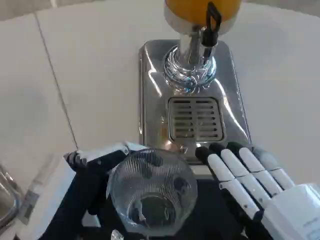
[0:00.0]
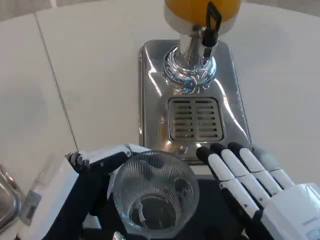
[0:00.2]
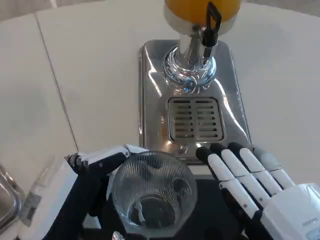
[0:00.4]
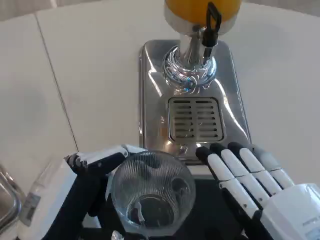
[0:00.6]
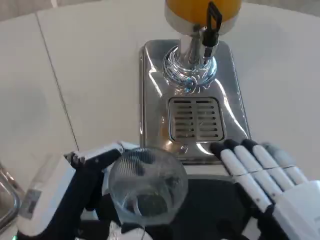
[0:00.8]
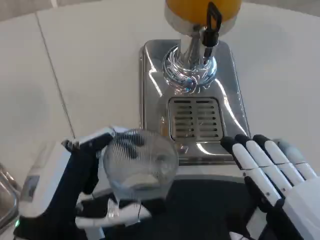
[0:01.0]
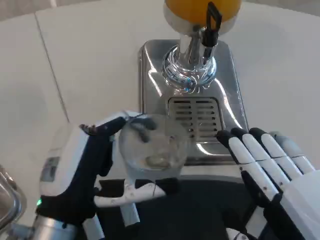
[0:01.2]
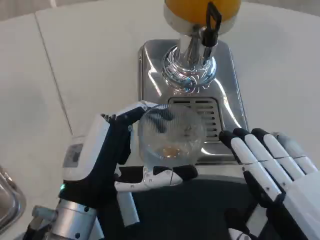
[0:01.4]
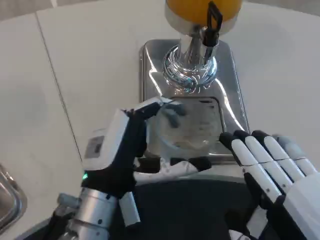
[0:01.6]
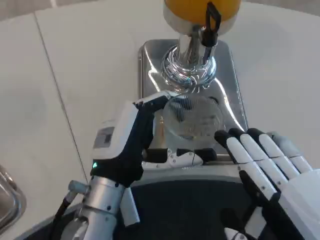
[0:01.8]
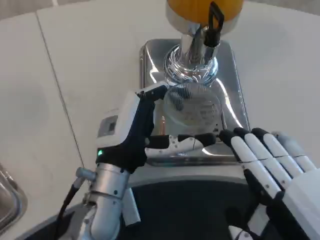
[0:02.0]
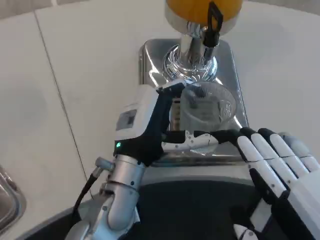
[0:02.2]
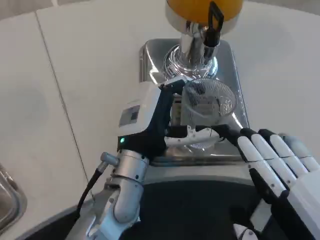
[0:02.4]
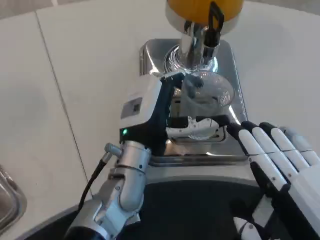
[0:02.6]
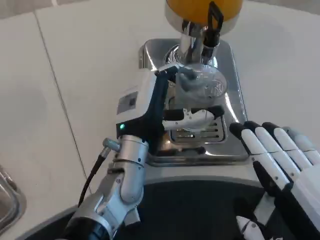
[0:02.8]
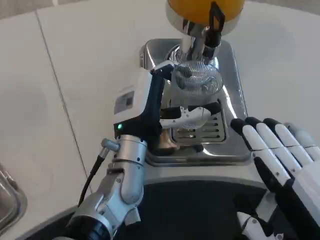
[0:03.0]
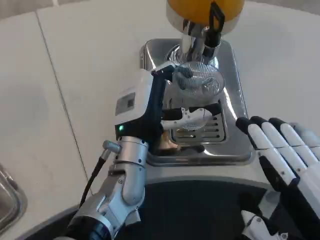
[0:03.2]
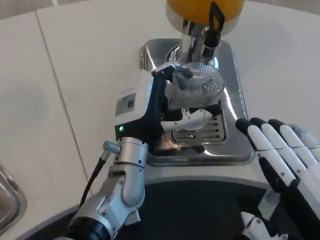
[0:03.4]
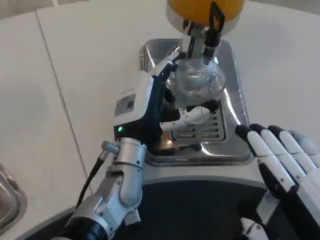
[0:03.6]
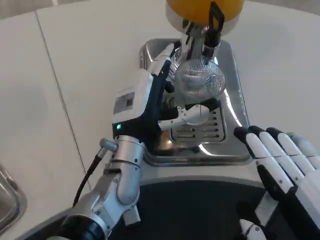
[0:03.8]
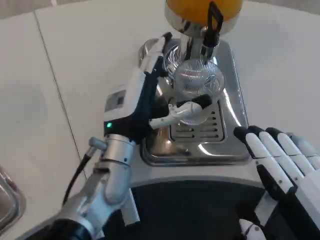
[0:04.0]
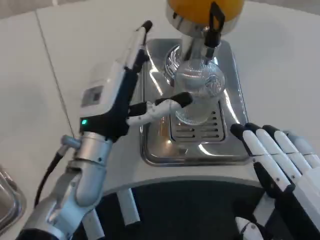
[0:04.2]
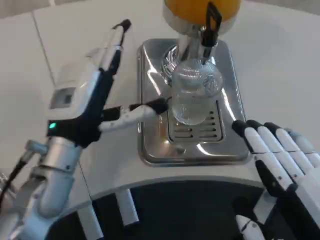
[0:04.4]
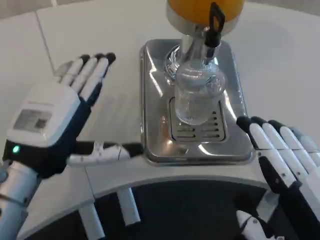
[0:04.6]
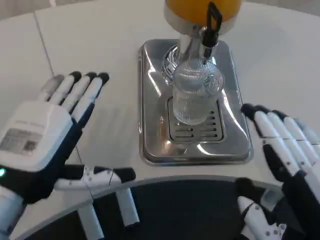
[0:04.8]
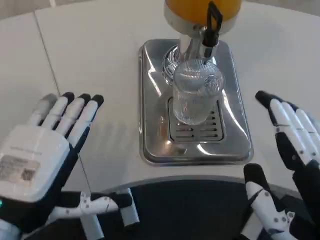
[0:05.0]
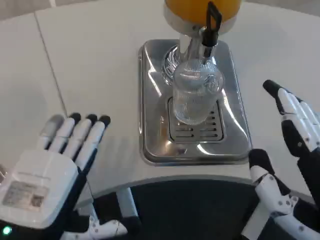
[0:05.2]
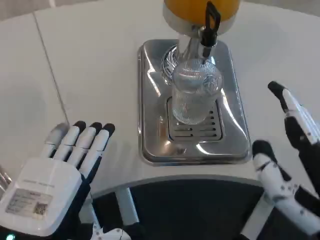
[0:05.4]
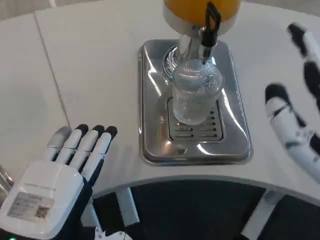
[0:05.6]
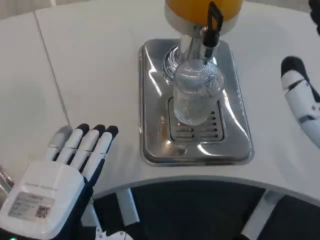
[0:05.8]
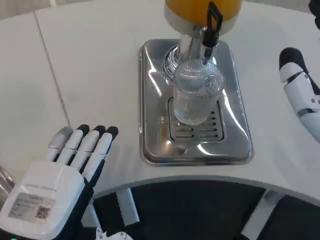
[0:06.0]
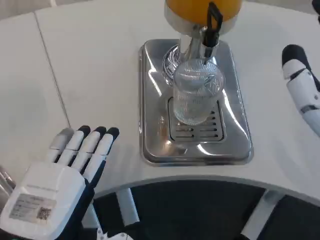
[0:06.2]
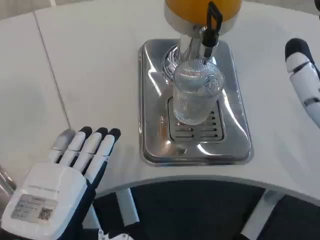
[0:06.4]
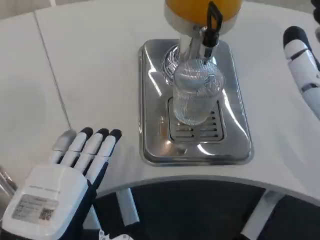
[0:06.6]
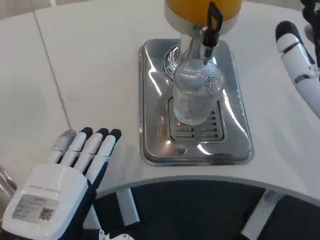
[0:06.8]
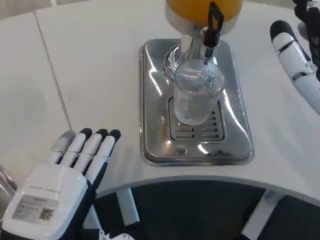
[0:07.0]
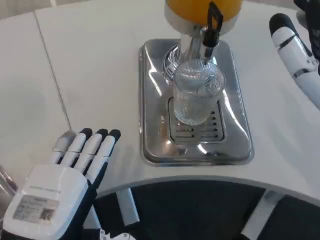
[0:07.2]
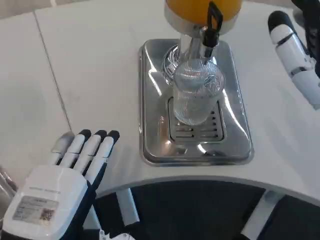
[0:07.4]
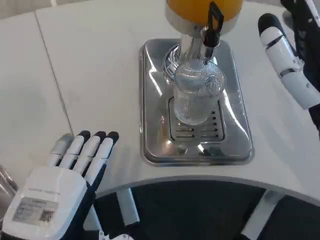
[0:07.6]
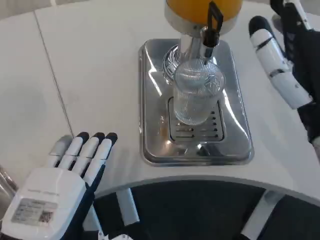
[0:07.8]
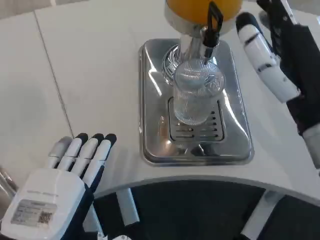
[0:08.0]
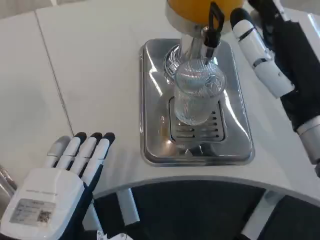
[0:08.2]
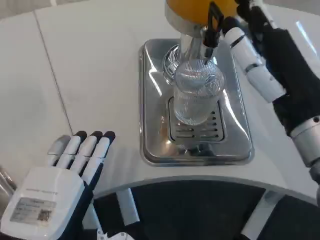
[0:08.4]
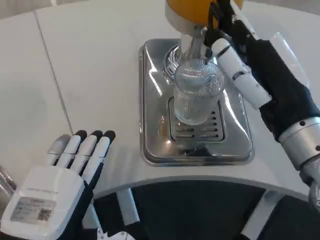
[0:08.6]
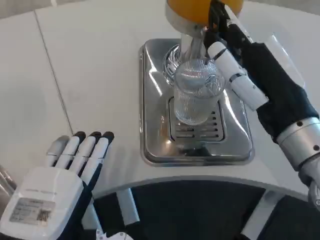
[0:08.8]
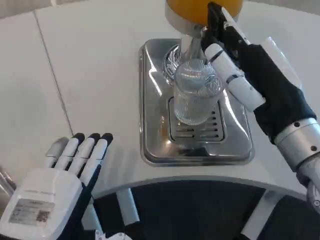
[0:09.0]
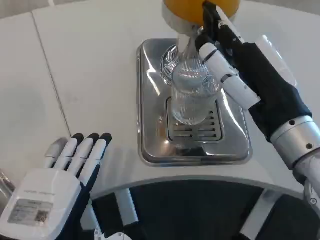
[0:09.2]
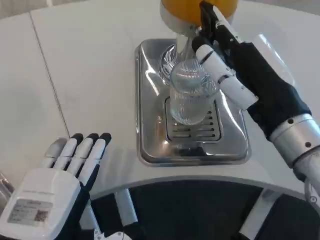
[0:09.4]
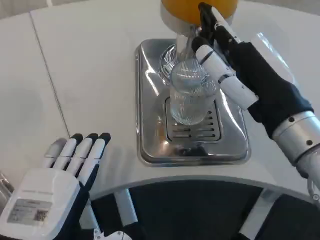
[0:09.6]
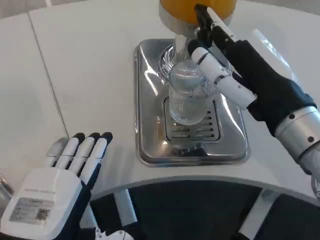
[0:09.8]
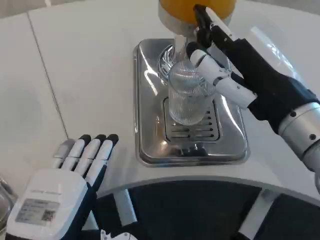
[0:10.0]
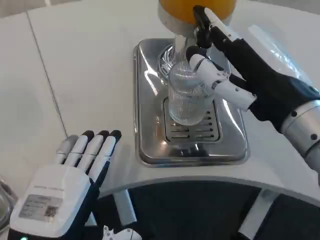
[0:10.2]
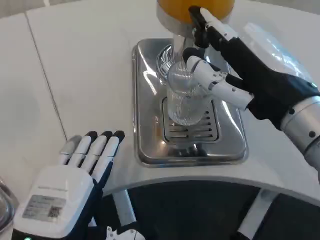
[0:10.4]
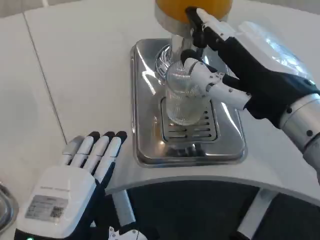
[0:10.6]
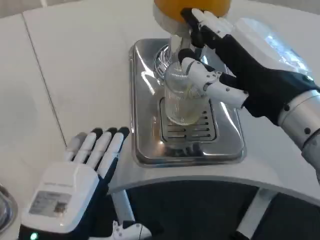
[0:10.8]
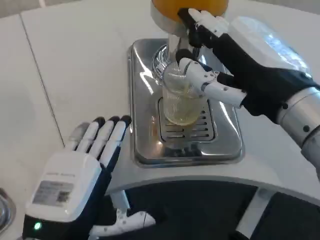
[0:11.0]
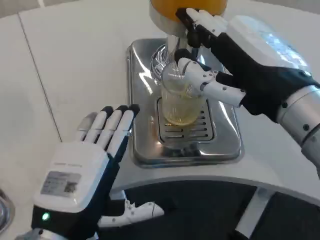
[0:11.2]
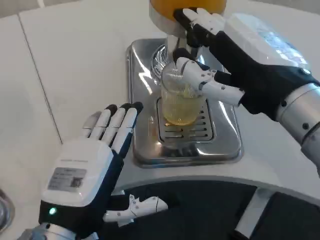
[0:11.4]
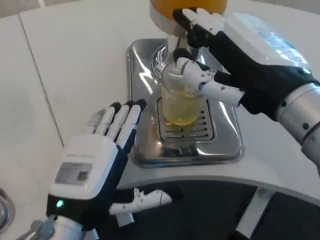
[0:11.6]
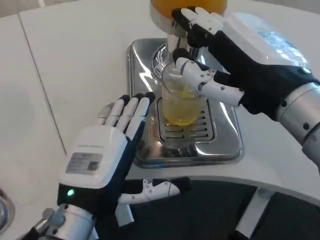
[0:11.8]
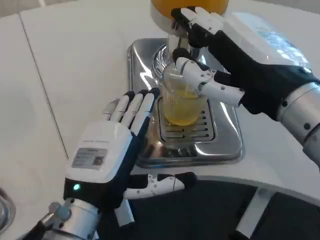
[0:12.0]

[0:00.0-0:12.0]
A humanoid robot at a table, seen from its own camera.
Task of the whole recording: Grasp the cup under the faucet to collect the drink, then remove the cup.
0:00.0 to 0:01.6: The left hand travels forward and to the right by some 10 cm.
0:01.6 to 0:03.0: The left hand goes some 10 cm forward.
0:03.0 to 0:04.4: The left hand is displaced to the left by approximately 10 cm.
0:04.4 to 0:06.0: The left hand moves backward, some 15 cm; the right hand travels forward by approximately 5 cm.
0:06.0 to 0:07.6: The right hand is displaced forward by about 5 cm.
0:07.6 to 0:09.0: The hands move only a little.
0:10.4 to 0:12.0: The left hand heads forward, covering some 5 cm.

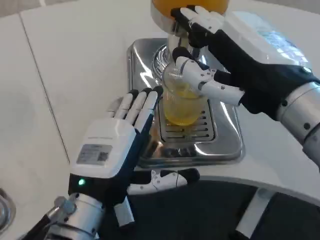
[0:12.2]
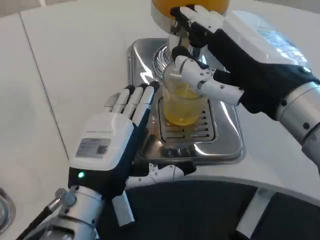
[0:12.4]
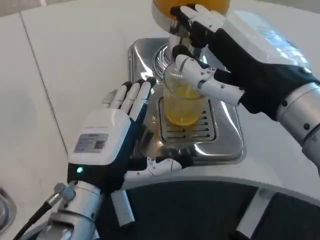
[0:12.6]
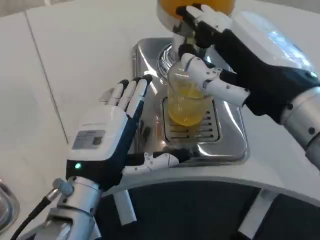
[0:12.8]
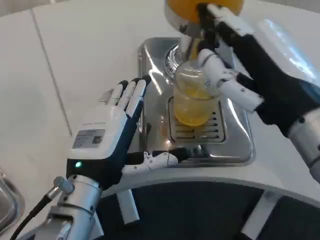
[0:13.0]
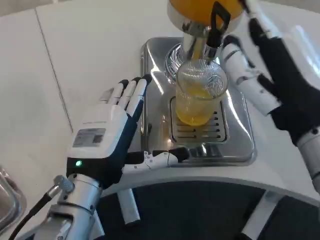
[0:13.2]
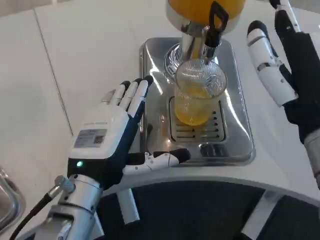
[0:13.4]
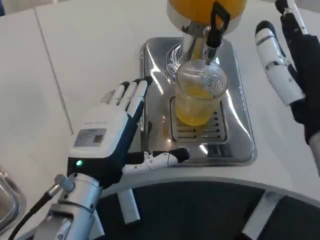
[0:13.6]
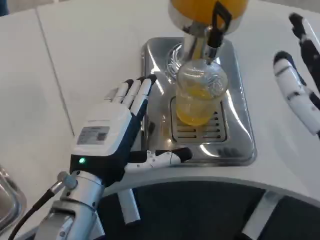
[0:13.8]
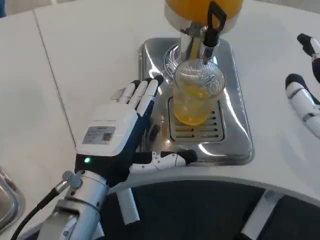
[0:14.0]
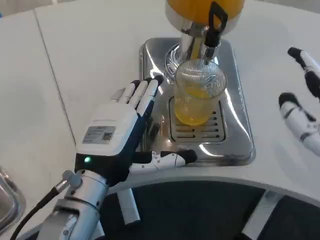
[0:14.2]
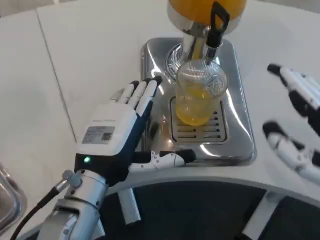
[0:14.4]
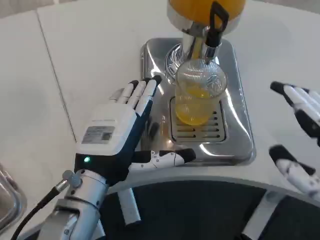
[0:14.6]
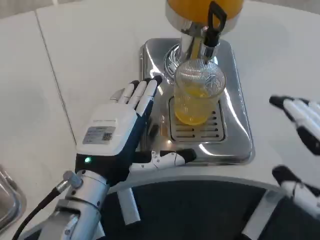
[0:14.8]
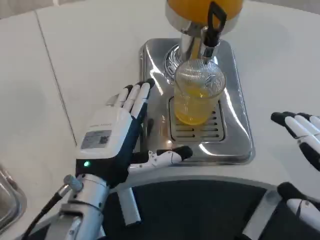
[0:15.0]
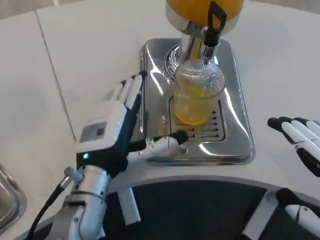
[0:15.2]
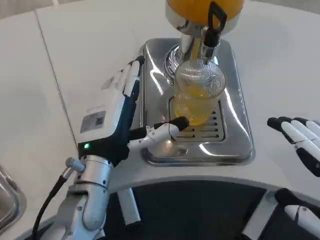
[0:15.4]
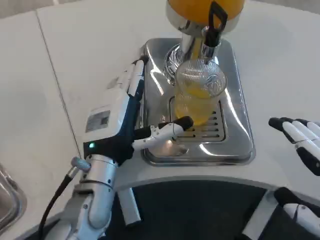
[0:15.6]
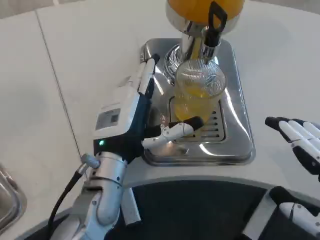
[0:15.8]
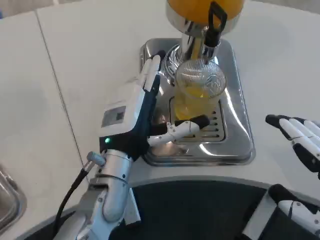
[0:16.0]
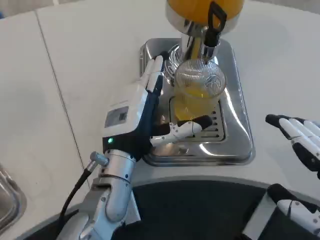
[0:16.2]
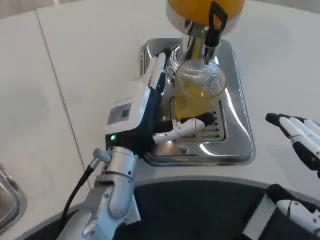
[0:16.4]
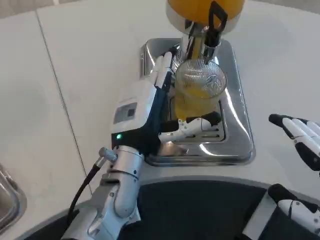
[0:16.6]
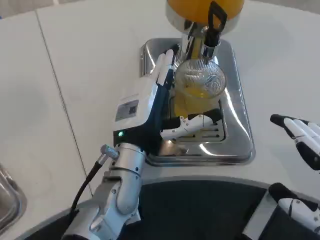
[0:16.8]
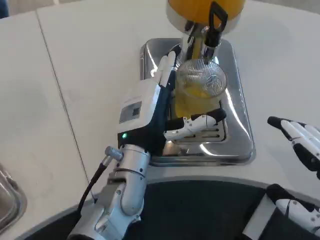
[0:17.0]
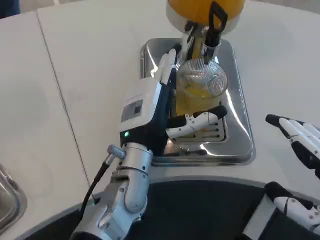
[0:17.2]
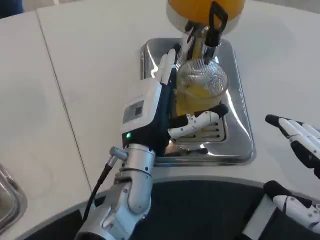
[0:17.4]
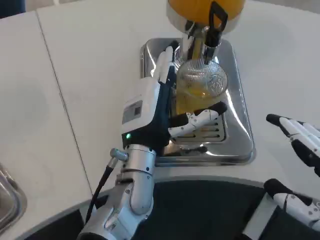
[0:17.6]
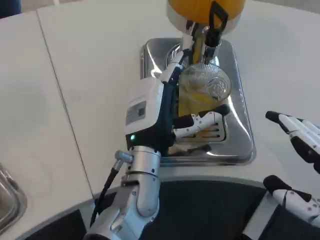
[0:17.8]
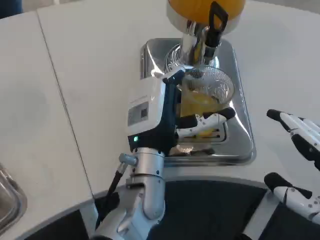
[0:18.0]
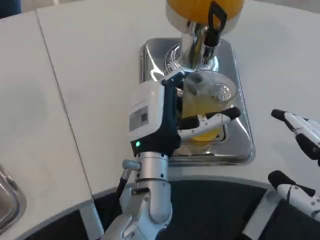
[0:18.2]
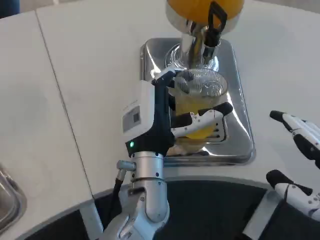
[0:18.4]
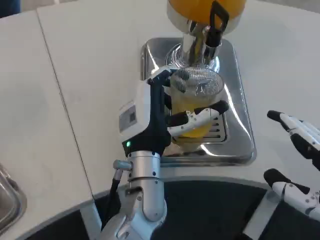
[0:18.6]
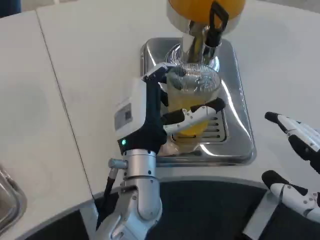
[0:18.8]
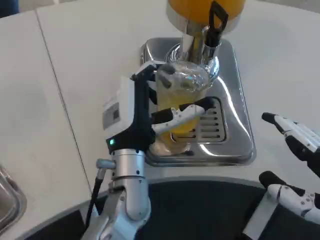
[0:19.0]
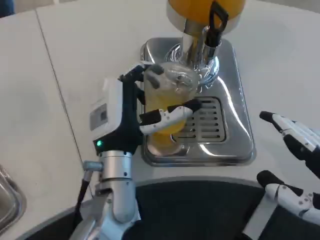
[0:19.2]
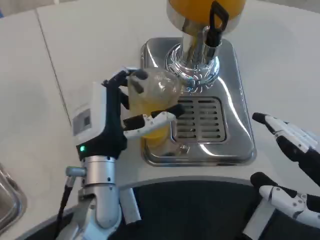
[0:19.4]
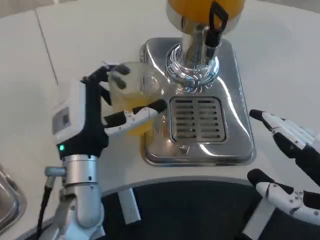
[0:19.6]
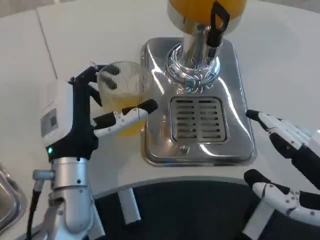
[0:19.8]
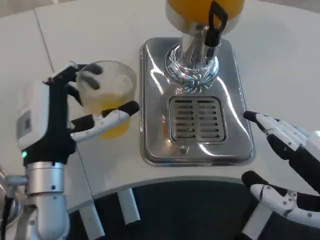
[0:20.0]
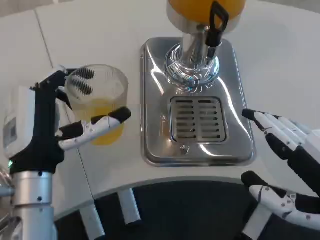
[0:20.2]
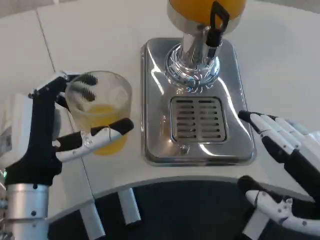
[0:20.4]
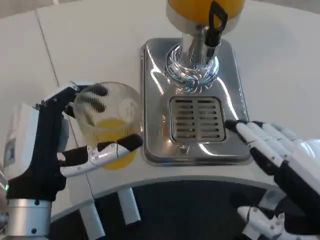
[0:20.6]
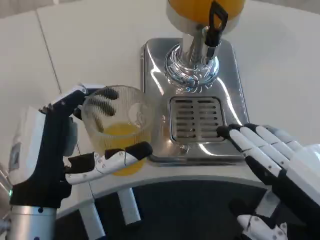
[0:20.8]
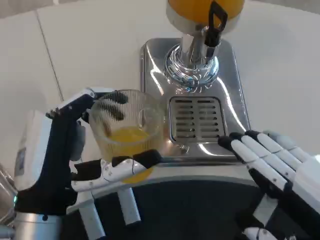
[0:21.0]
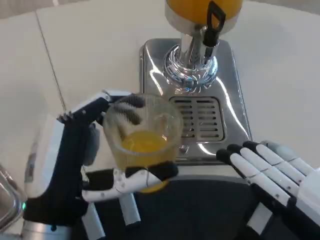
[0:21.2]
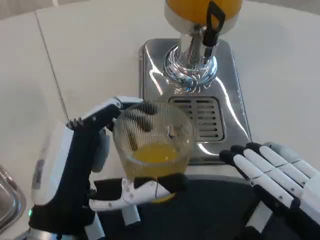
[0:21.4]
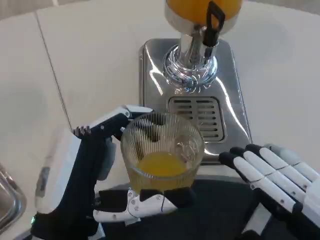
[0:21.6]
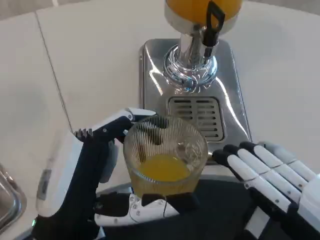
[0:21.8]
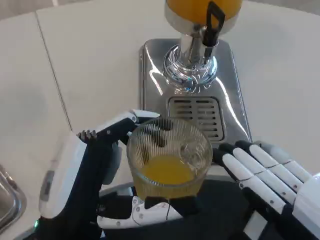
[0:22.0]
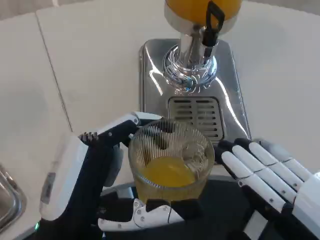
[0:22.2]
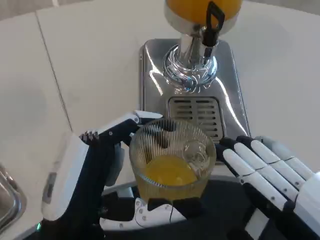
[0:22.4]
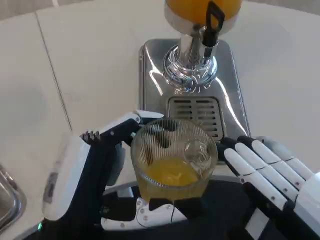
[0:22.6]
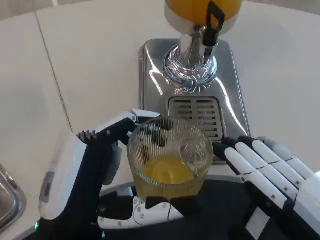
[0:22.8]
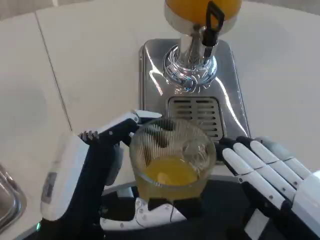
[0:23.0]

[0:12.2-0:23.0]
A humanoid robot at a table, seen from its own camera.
Task of the whole recording: Grasp the cup under the faucet to collect the drink, then remove the cup.
0:12.2 to 0:13.8: The right hand heads downward, covering some 5 cm.
0:13.8 to 0:15.2: The right hand moves to the right and backward, approximately 10 cm.
0:15.2 to 0:16.8: The left hand ends up roughly 5 cm from where it was.
0:16.8 to 0:18.4: The hands stay close to where they were, moving slightly.
0:18.4 to 0:20.0: The left hand goes approximately 15 cm to the left.
0:20.0 to 0:21.4: The left hand travels backward by about 10 cm.
